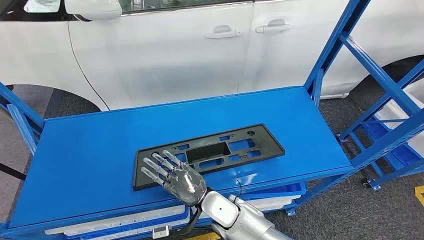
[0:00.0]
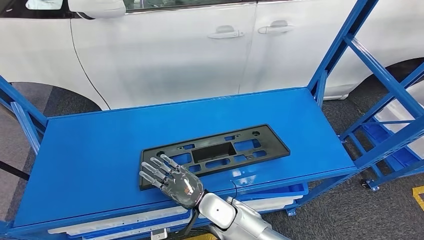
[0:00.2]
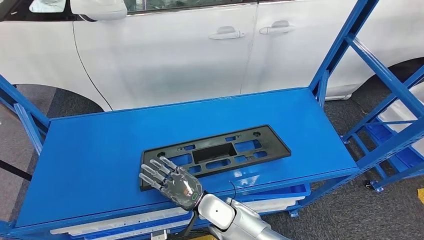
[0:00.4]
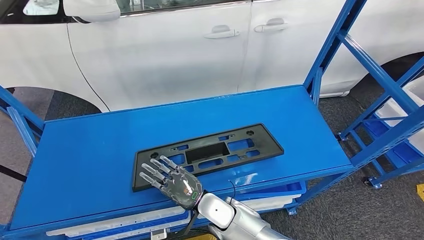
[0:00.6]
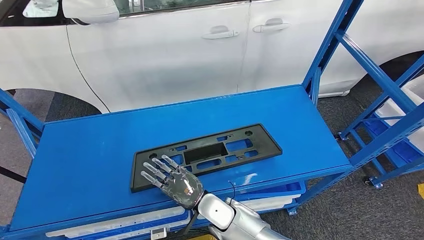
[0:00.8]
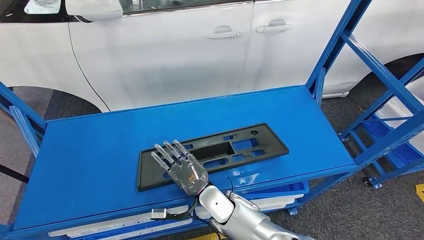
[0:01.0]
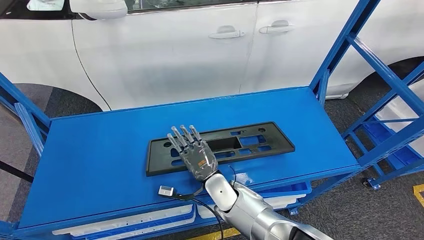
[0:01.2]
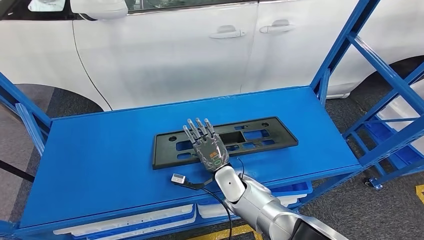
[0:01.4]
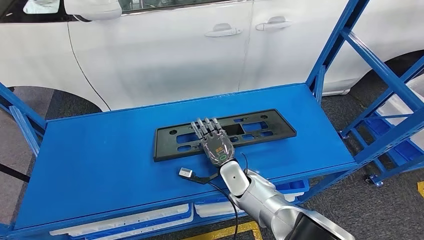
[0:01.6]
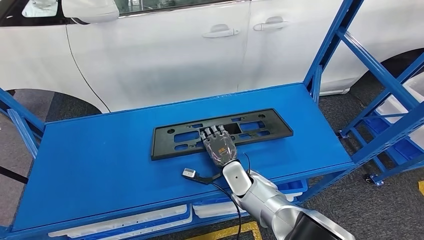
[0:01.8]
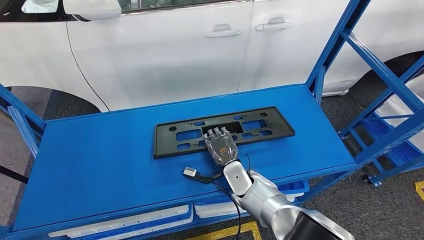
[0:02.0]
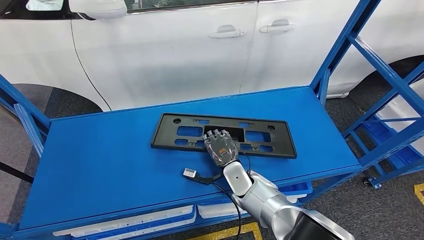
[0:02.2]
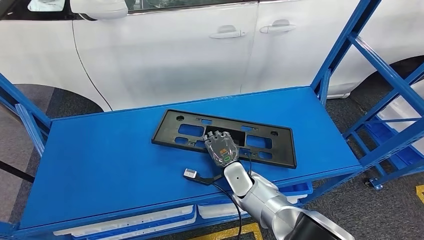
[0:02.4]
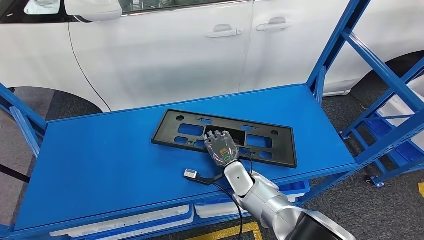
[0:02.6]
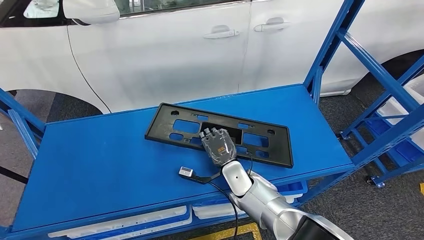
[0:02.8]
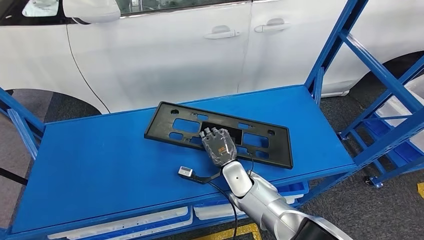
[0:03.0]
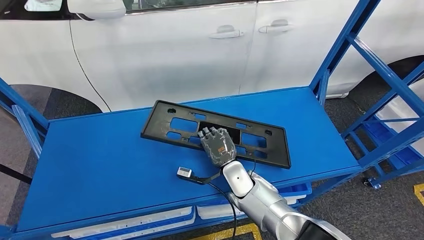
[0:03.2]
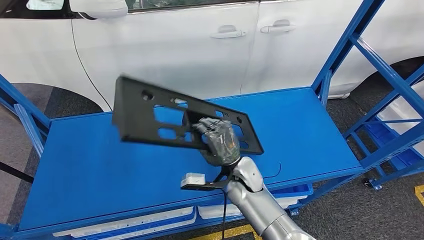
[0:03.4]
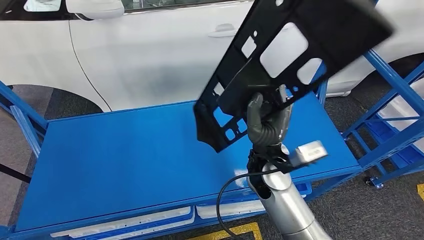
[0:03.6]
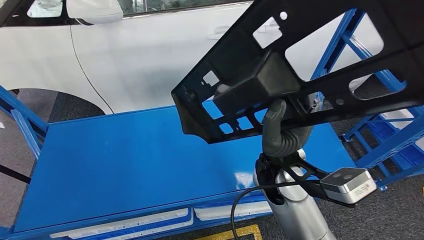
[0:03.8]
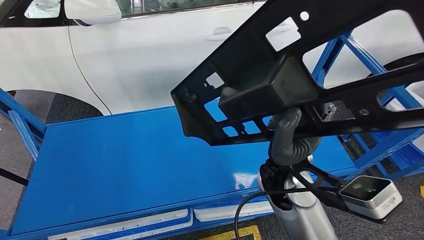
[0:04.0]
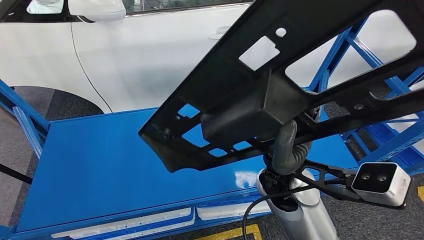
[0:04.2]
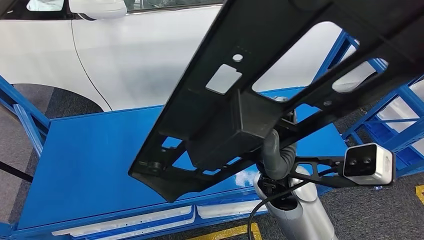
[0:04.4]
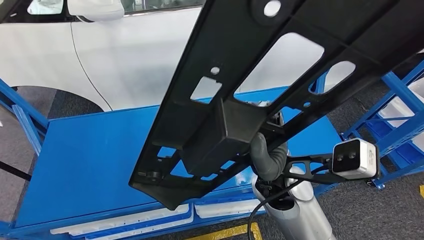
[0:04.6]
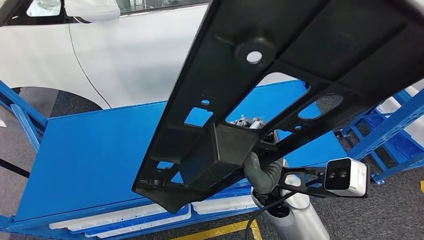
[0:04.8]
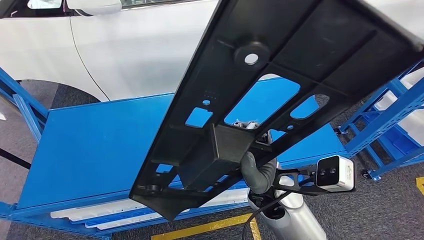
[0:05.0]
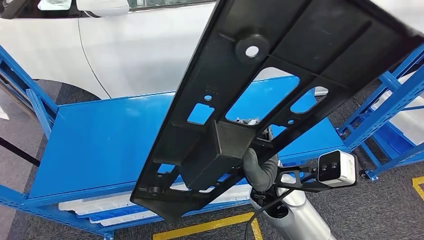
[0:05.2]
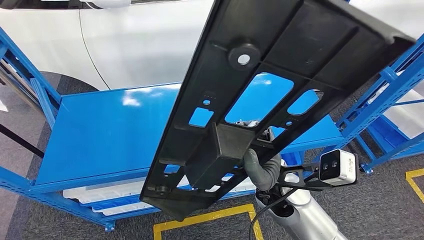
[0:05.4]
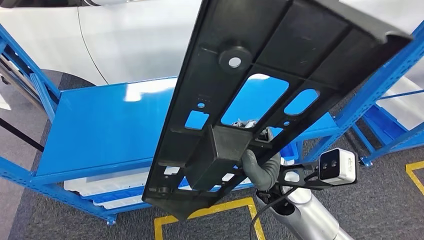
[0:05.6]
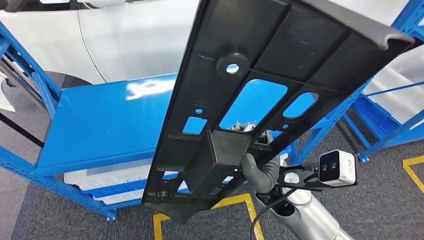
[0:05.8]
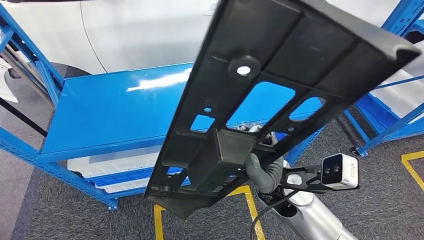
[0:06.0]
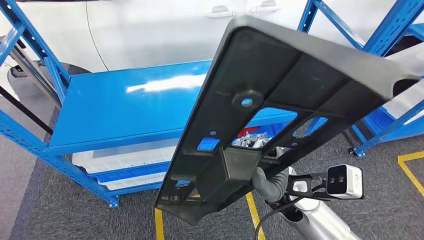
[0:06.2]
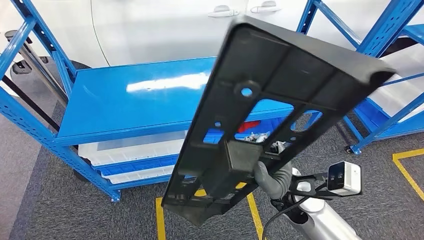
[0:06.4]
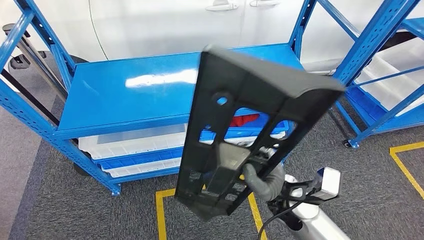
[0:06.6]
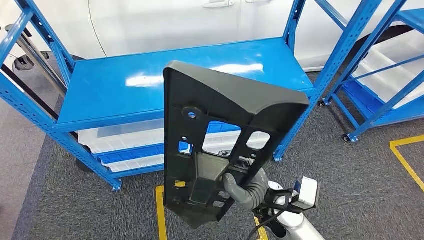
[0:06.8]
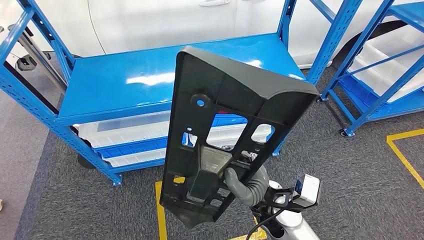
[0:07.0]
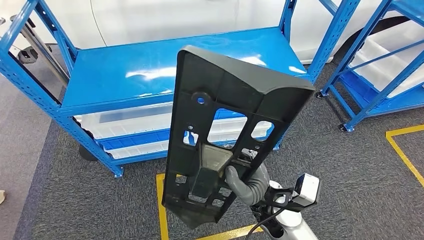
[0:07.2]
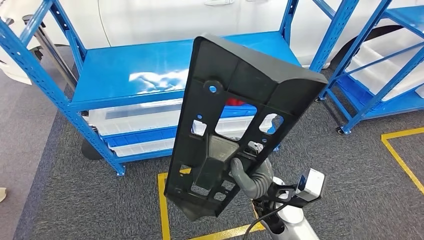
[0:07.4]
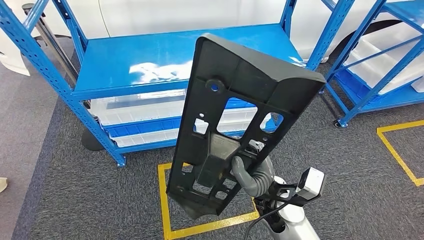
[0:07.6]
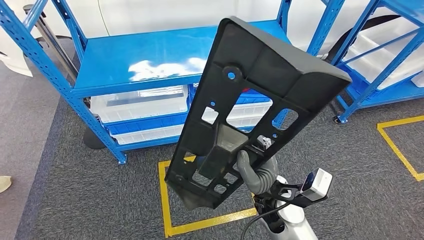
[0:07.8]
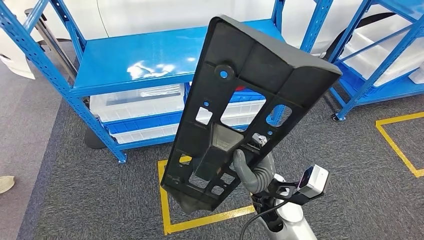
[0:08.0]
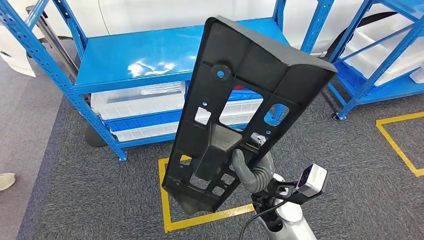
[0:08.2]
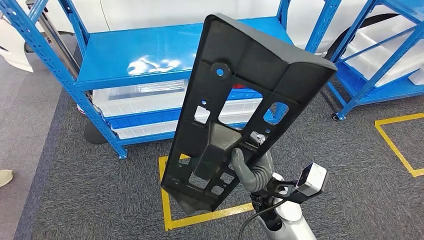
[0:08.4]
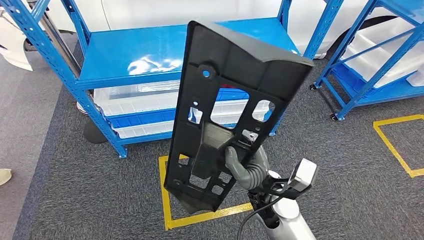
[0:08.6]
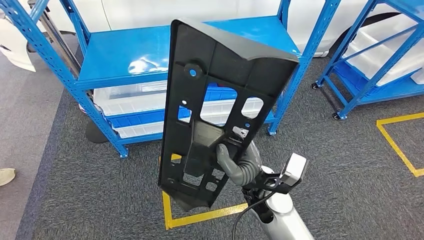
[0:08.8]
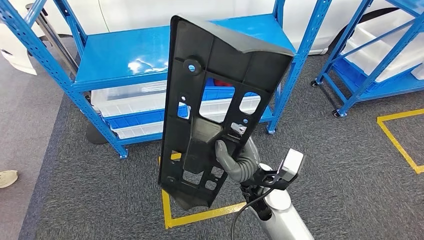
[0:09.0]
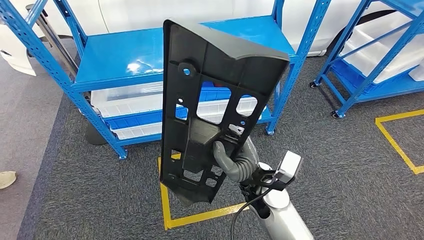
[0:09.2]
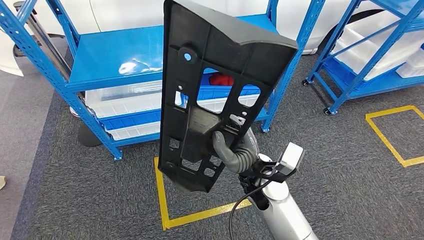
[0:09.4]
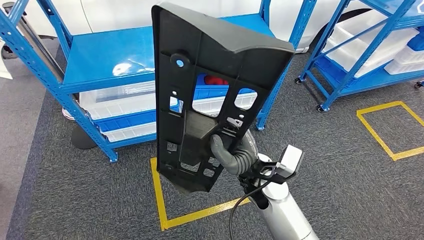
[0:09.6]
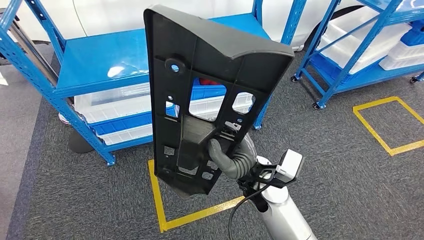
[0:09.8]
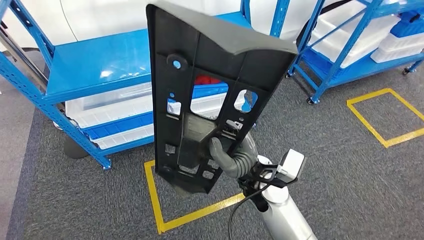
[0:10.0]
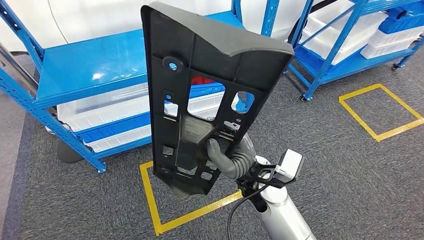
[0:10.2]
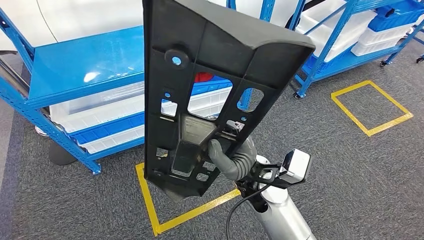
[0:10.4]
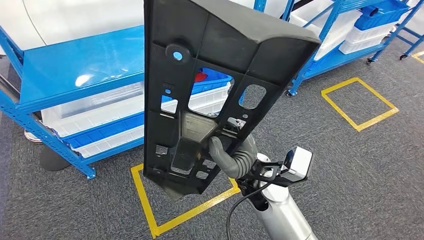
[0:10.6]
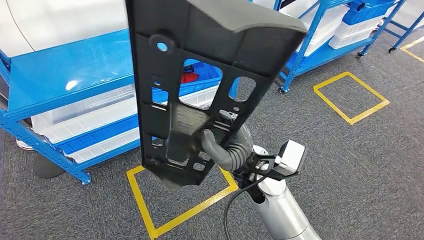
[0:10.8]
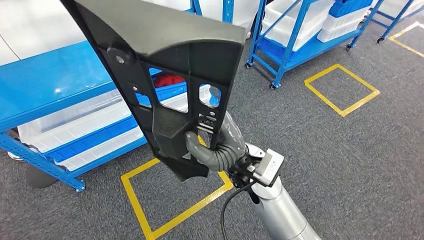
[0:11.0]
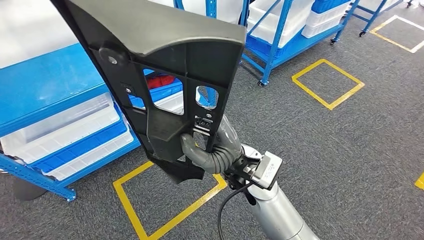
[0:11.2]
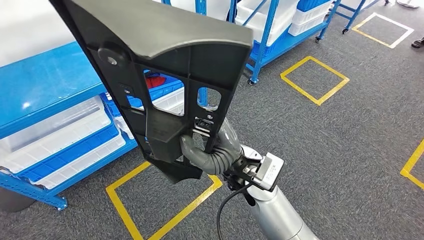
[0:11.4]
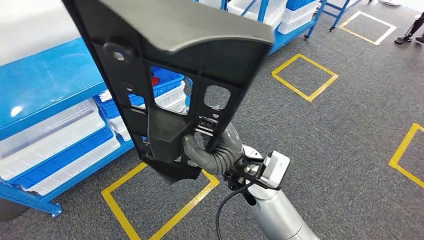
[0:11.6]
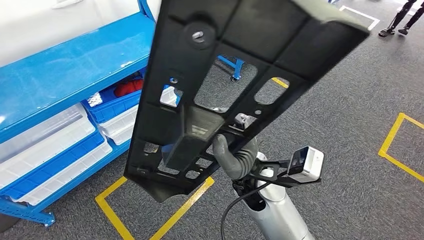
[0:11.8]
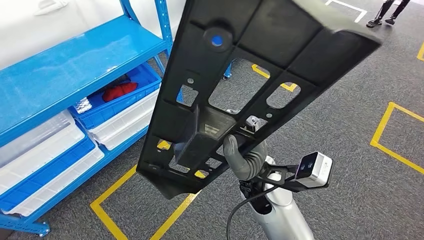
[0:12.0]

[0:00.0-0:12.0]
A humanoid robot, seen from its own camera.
Step, 0:00.0 to 0:04.2: Pick up the large material from the shelf.
0:01.6 to 0:03.0: The hands move only a little.

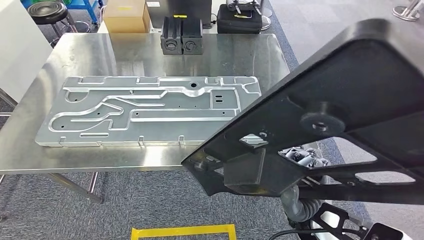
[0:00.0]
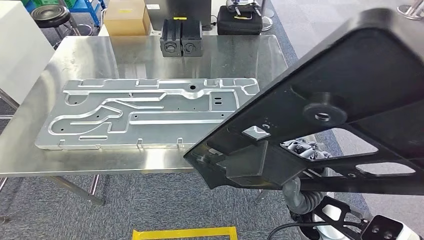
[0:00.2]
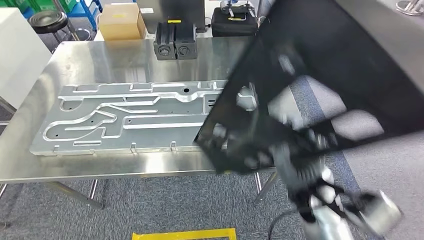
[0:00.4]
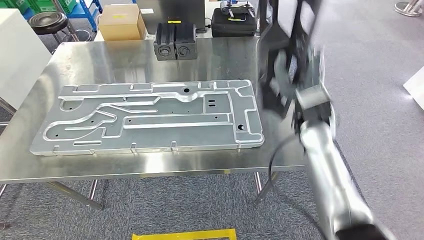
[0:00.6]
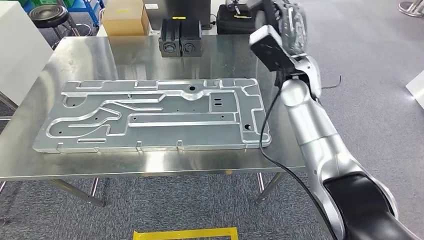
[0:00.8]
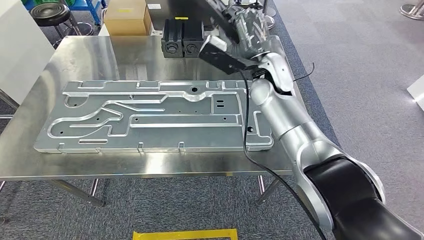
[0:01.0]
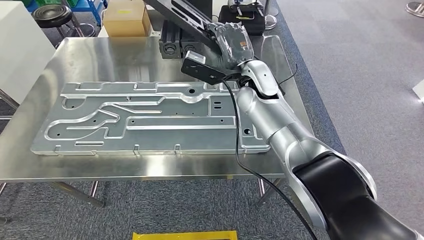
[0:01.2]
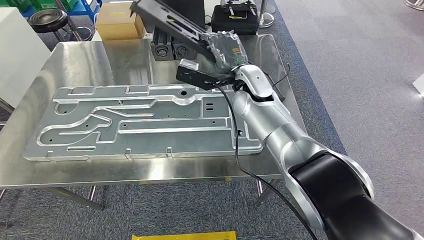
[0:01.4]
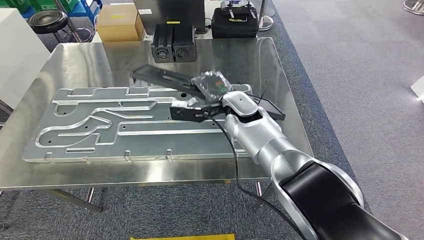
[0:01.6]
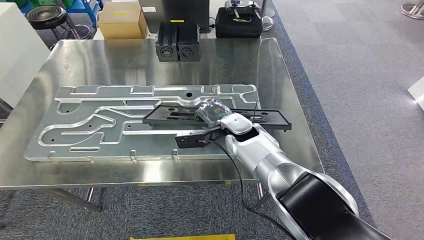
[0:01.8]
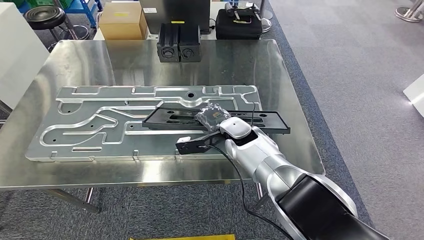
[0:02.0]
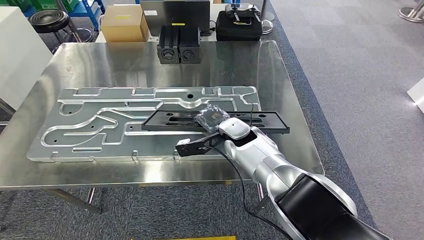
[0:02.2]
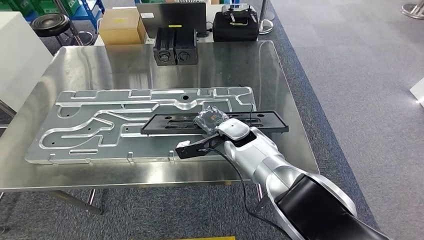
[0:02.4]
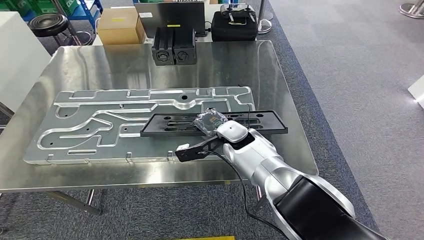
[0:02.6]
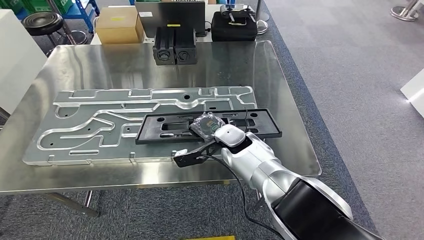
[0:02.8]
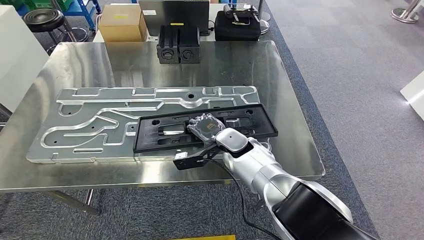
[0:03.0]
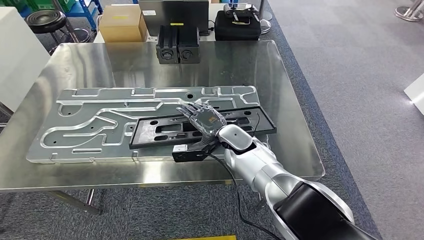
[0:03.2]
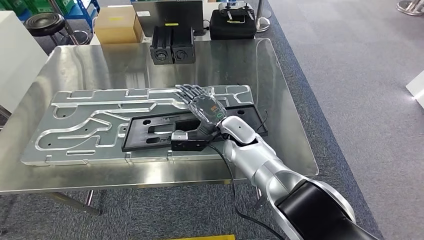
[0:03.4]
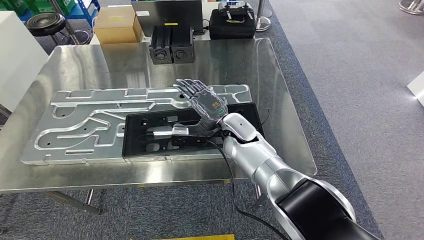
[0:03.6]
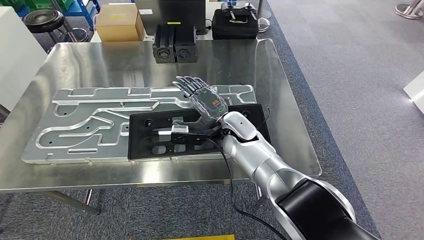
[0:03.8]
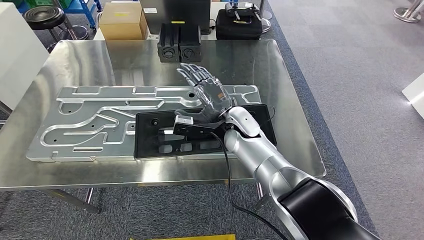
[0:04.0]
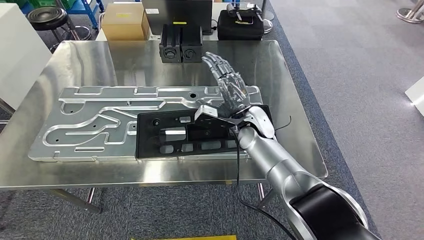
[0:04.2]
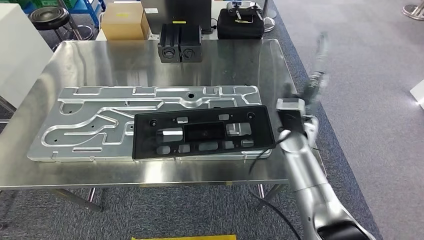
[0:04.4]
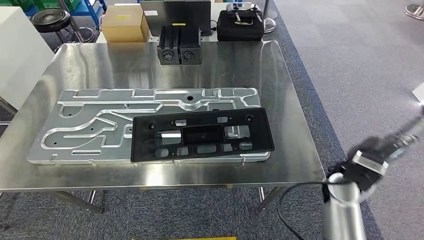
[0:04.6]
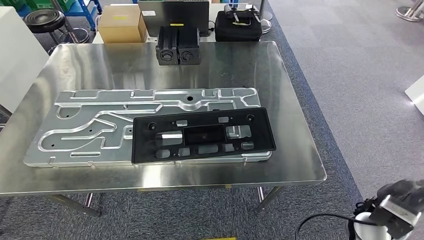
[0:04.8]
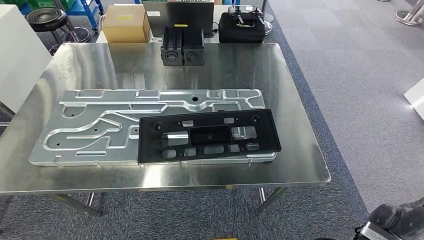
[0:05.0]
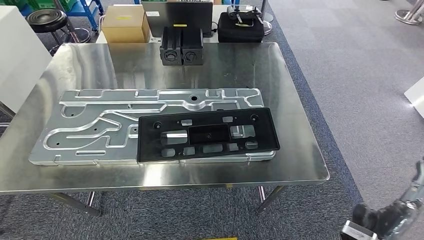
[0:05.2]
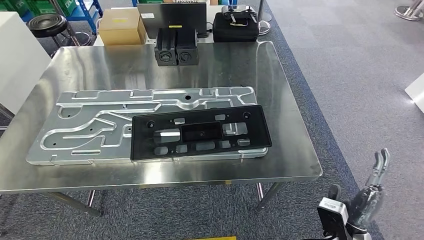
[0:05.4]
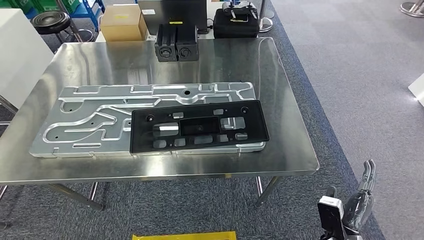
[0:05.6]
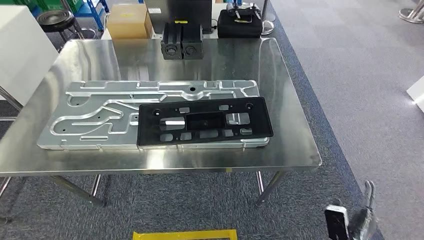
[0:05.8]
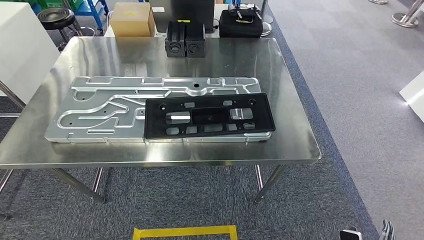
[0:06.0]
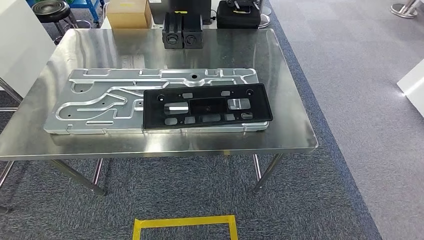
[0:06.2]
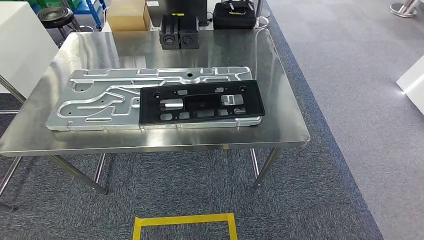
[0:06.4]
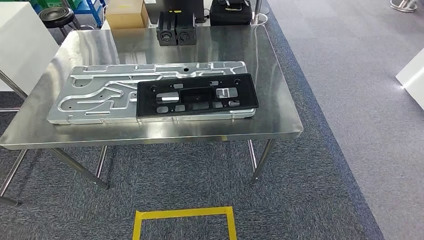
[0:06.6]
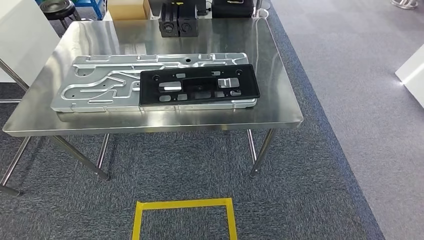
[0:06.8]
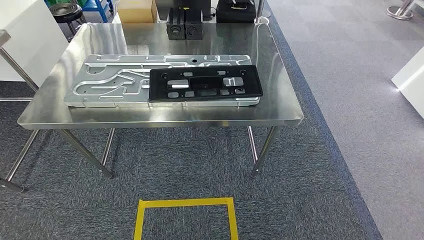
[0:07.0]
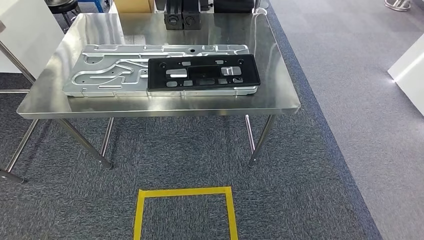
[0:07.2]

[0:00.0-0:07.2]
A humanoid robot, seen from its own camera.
Step, 0:01.0 to 0:05.4: Insert the large material into the corresponding slot on the workbench.
